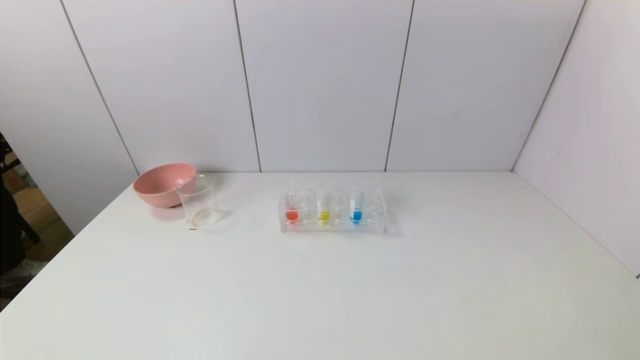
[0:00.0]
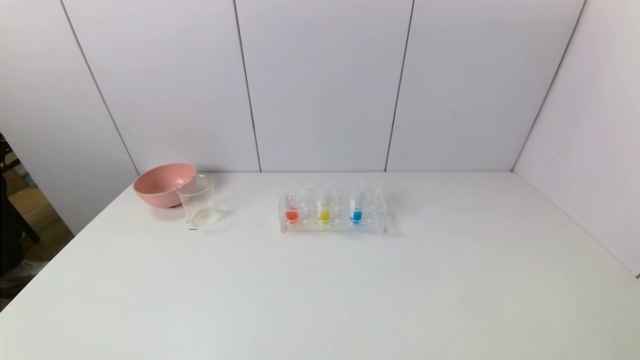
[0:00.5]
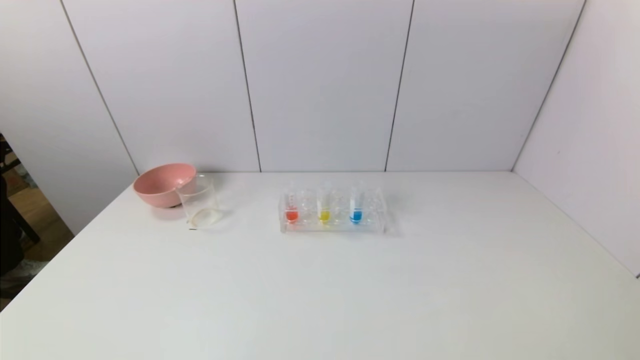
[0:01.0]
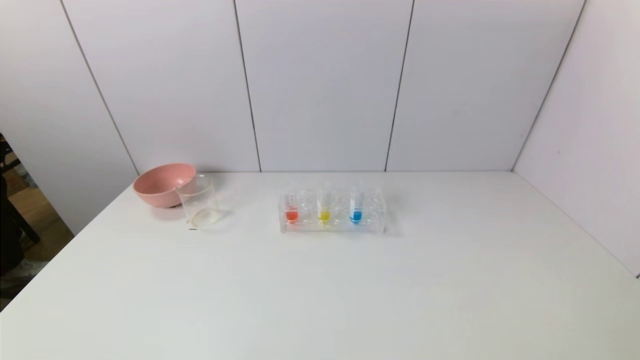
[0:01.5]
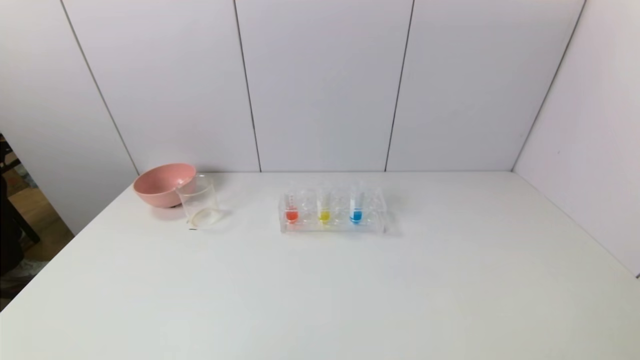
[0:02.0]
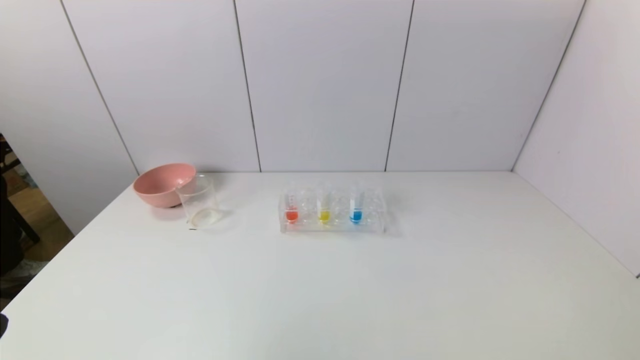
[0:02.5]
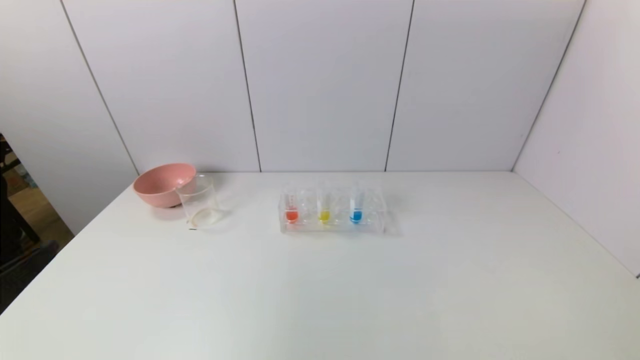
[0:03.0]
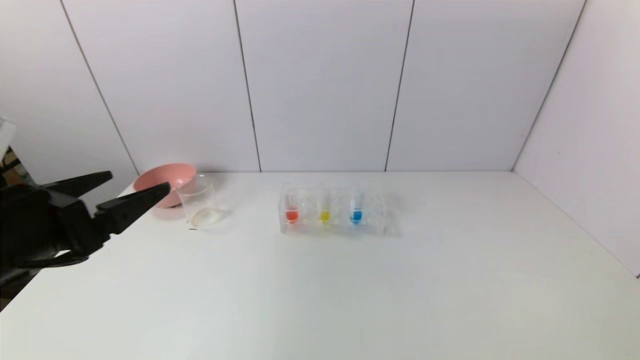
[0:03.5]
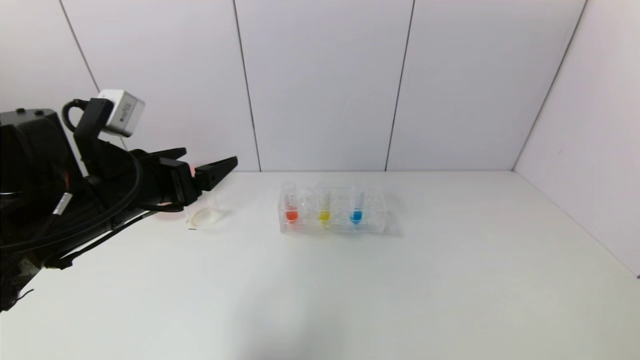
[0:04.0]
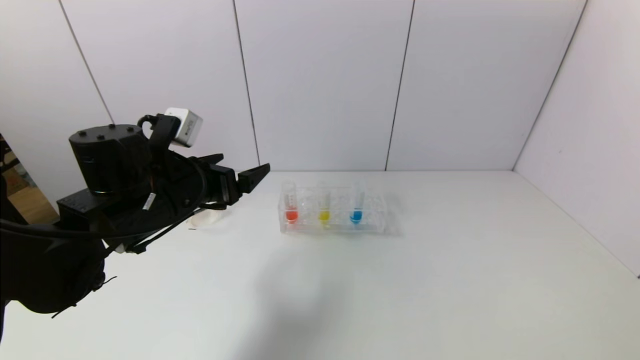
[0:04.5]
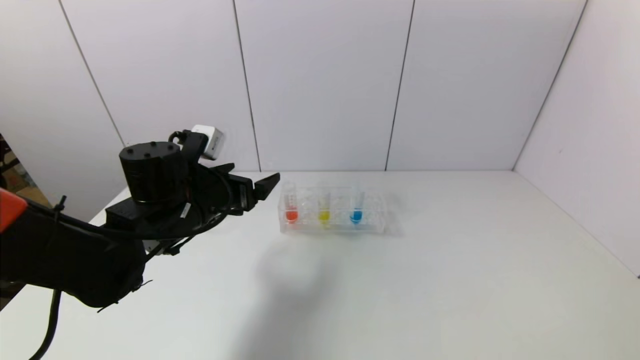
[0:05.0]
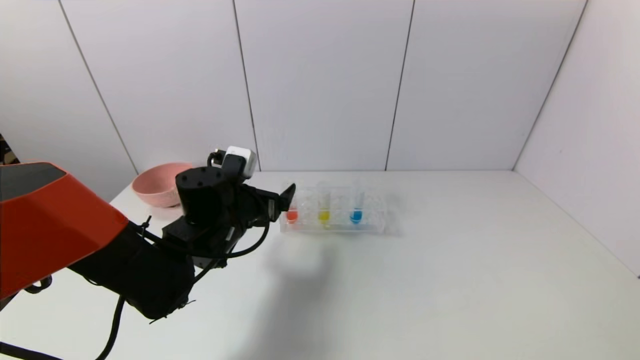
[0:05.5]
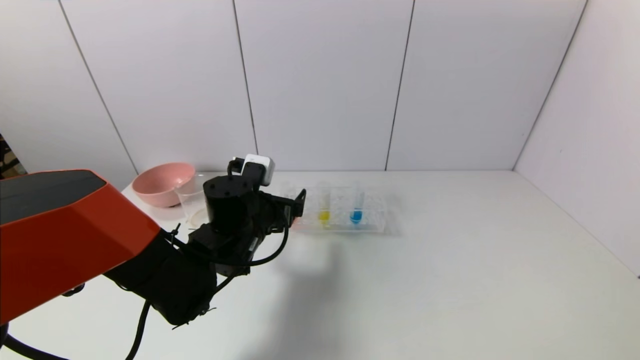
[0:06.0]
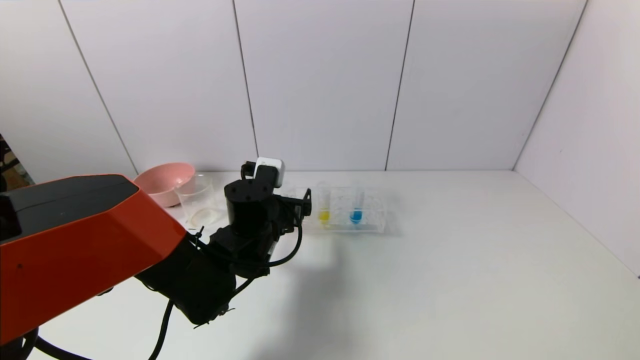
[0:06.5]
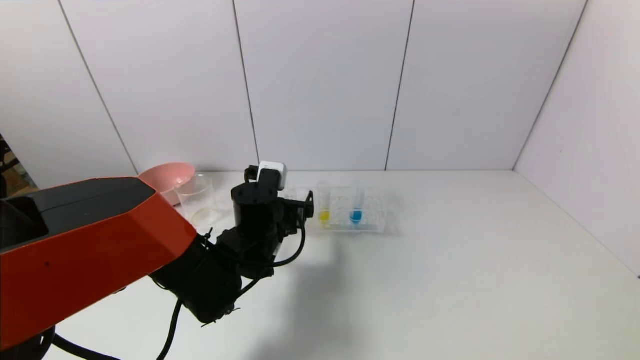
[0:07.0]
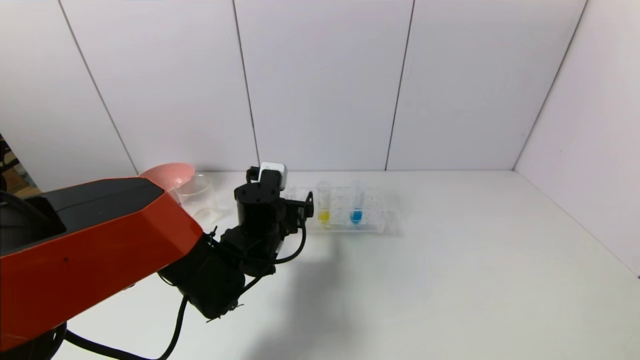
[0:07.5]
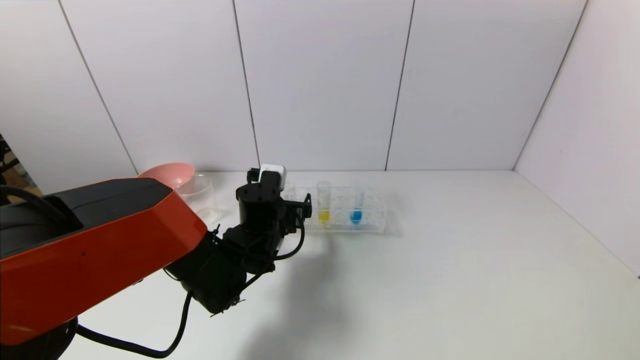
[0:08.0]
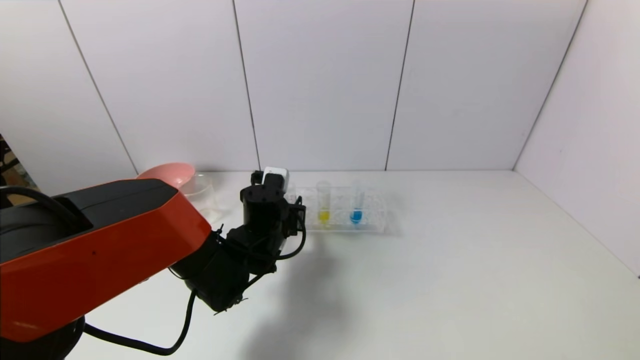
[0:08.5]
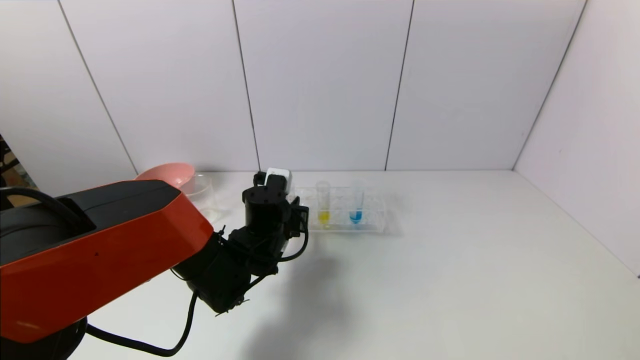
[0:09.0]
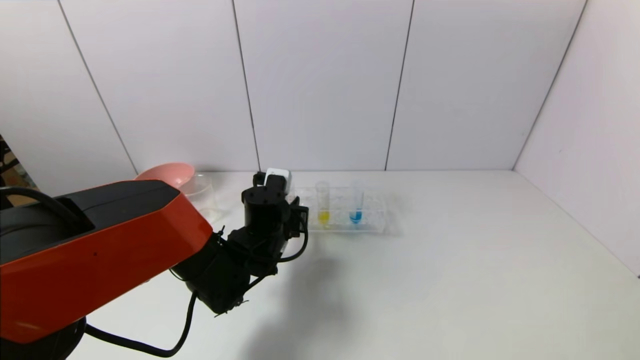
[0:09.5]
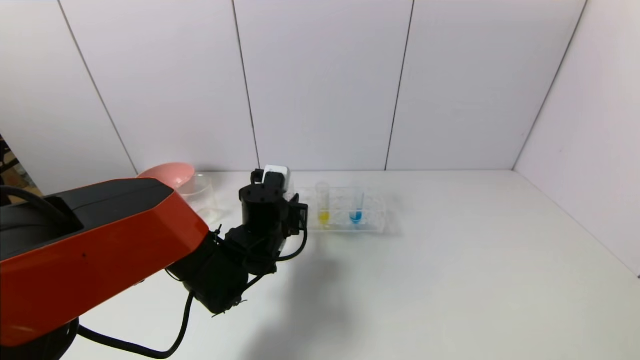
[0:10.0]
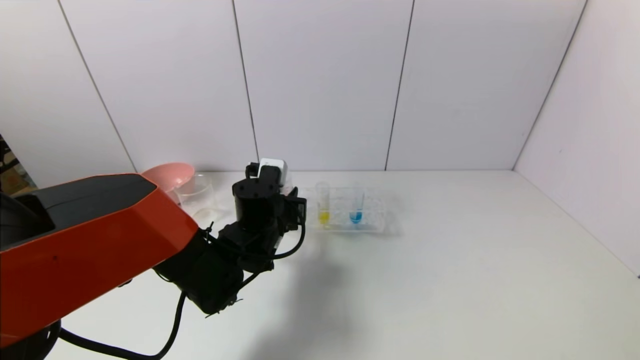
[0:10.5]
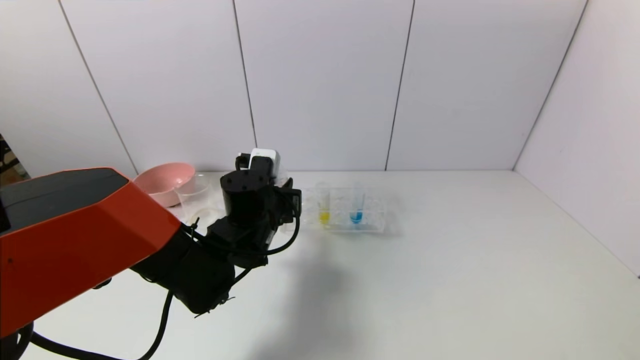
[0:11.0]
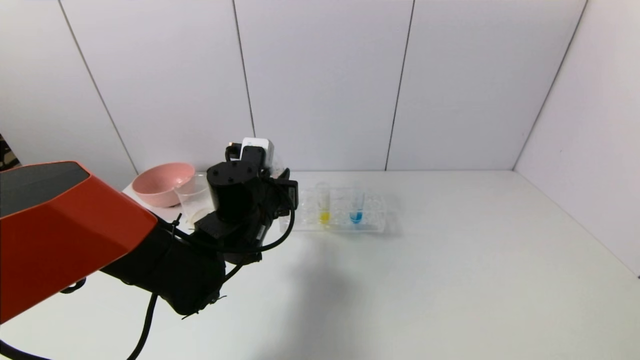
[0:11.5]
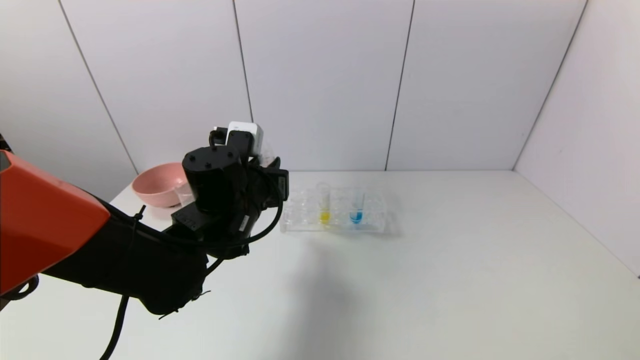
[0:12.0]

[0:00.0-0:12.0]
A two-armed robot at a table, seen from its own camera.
Task of the whole recording: pick up the test tube with yellow pigment and the test tube with red pigment by grippers and pour them into the beaker.
Step, 0:00.0 to 0:09.0: Grasp the red reagent with the left gripper.
0:02.0 to 0:04.0: The left gripper travels forward and upward by about 30 cm.
0:04.0 to 0:06.0: The left gripper goes some 20 cm to the right, downward and forward.
0:06.0 to 0:08.0: The grippers stay close to where they were, moving slightly.
0:08.0 to 0:10.0: The left gripper closes.
0:10.0 to 0:12.0: The left gripper is displaced upward by approximately 10 cm.

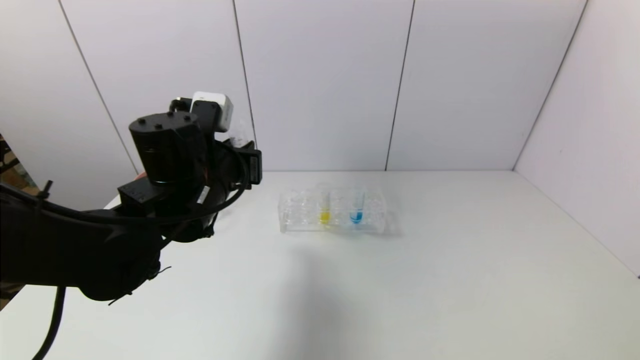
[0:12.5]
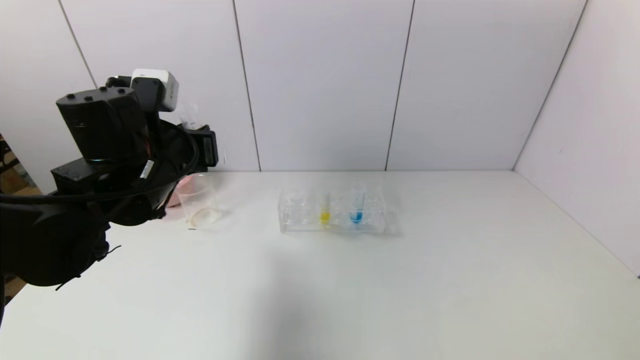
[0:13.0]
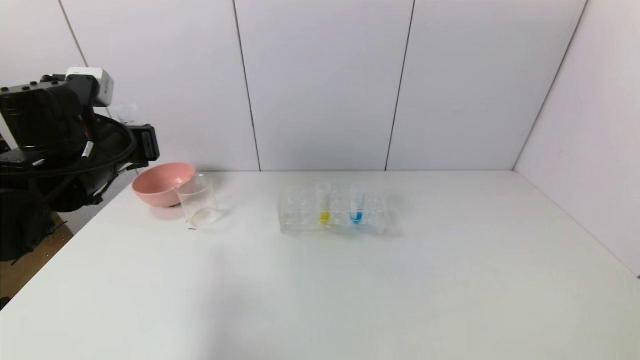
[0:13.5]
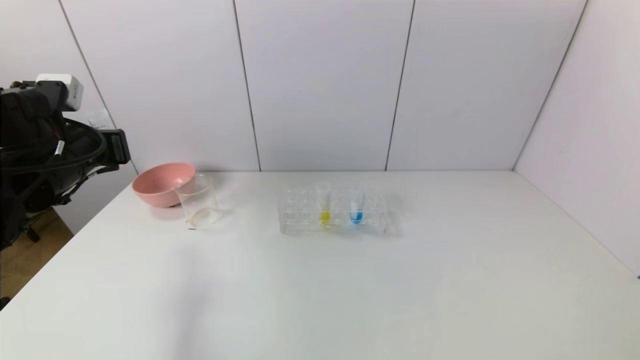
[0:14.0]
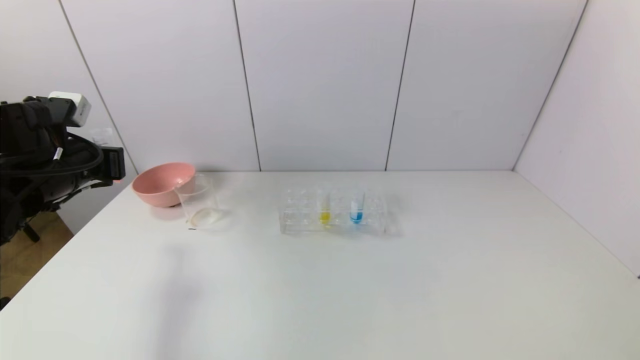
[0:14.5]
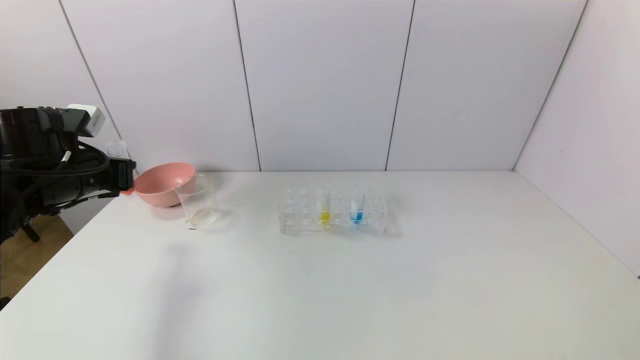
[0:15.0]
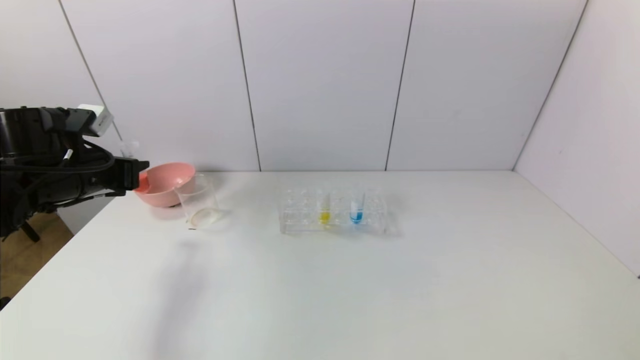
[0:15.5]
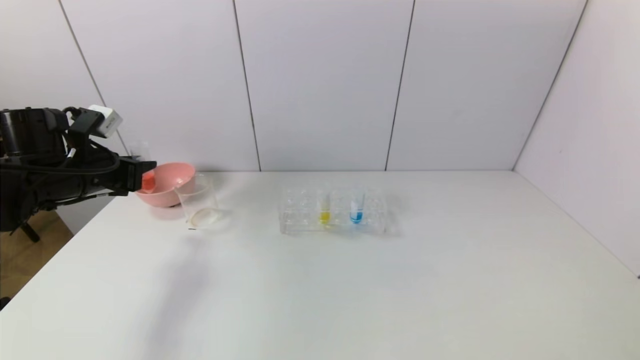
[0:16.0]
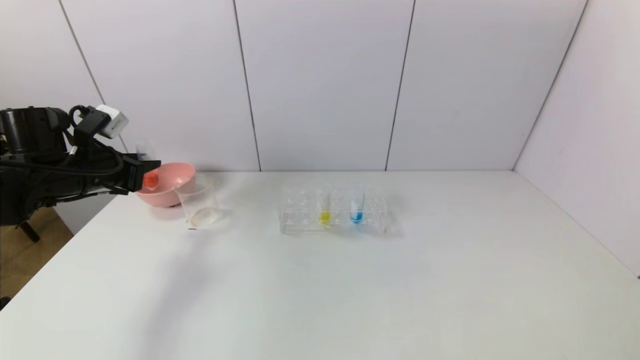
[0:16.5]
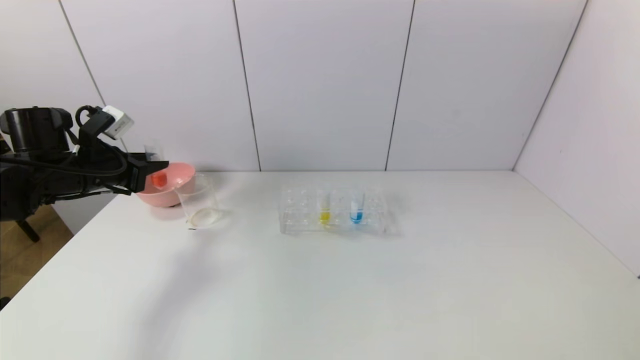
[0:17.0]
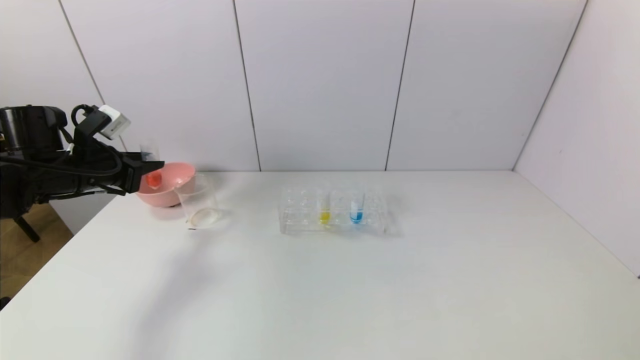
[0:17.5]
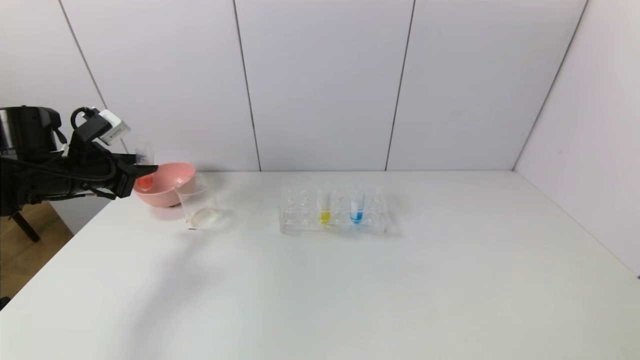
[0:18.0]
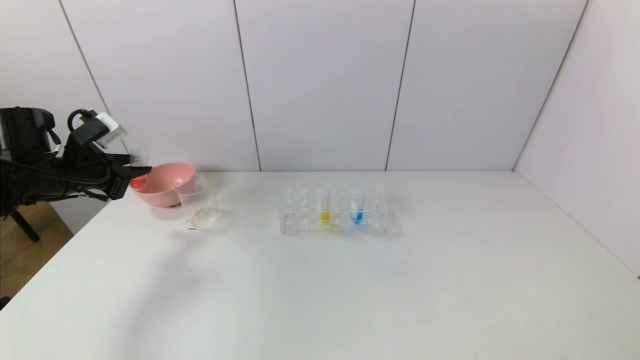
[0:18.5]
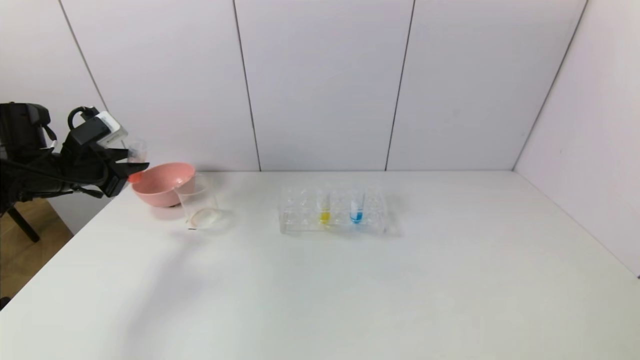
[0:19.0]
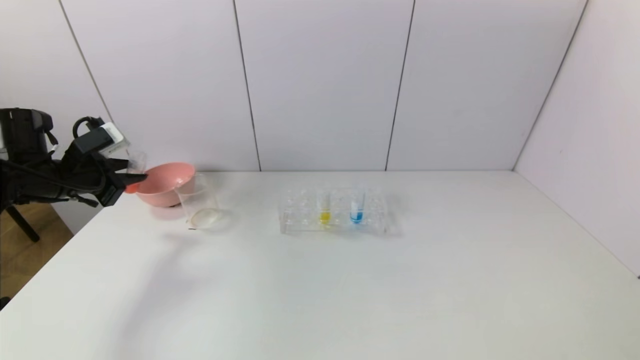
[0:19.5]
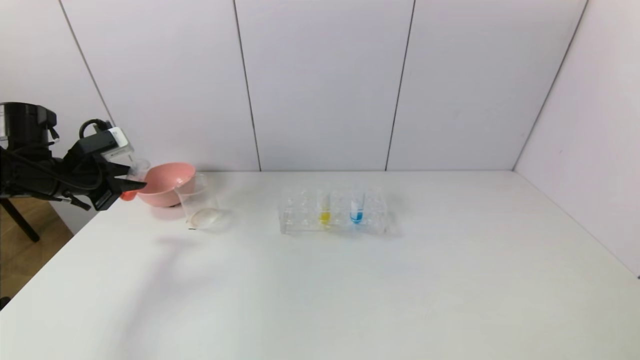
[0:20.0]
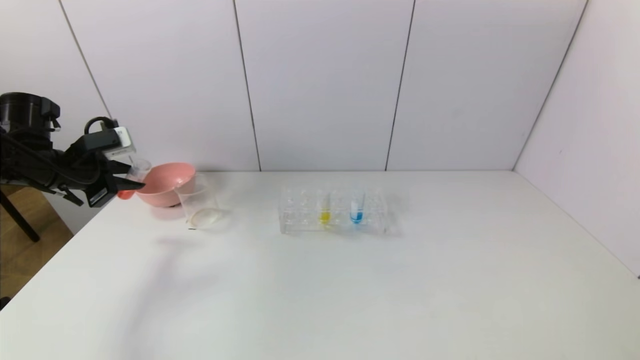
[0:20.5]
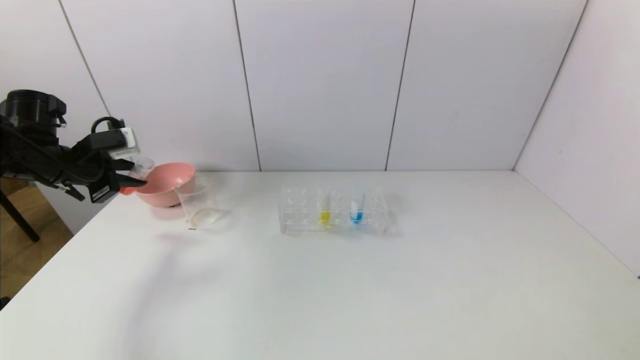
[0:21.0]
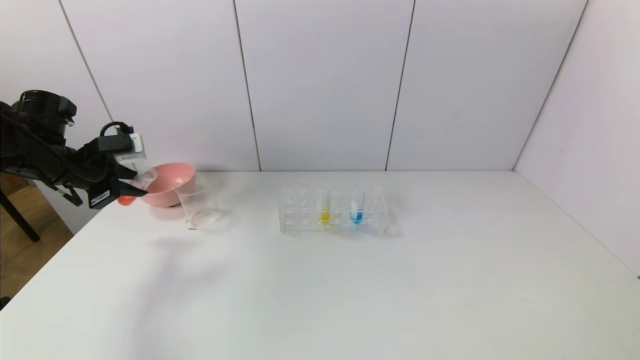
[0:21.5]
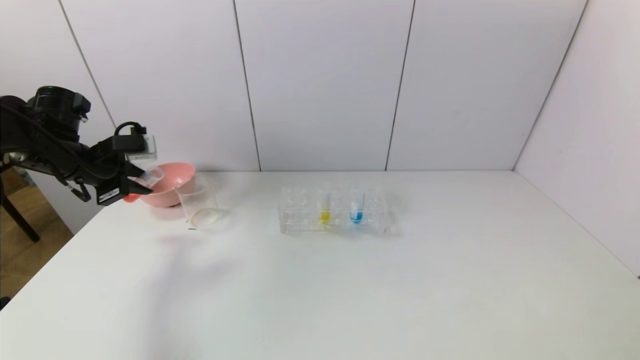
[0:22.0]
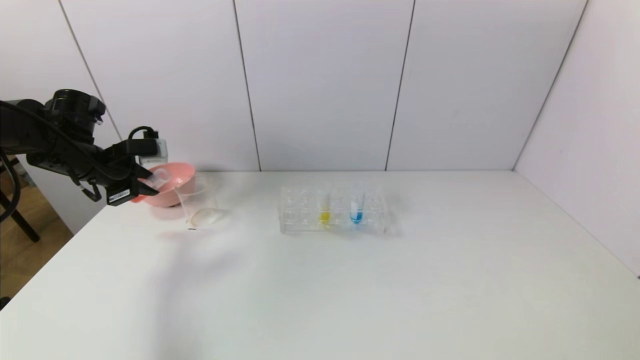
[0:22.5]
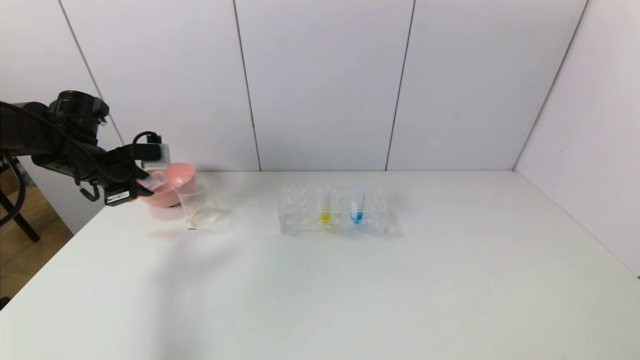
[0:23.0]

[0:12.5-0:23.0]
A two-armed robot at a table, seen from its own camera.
Task of the whole recording: pick up the test tube with yellow pigment and the test tube with red pigment by grippers and pour them into the beaker.
0:12.5 to 0:14.5: The left gripper moves to the left, roughly 20 cm.
0:21.0 to 0:23.0: The grippers stay close to where they were, moving slightly.
